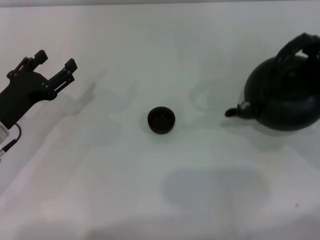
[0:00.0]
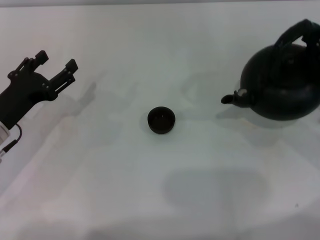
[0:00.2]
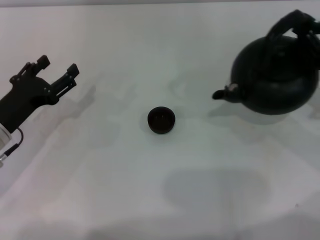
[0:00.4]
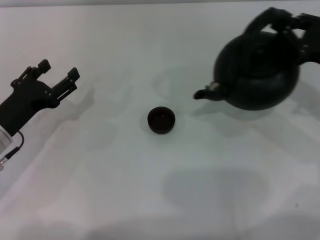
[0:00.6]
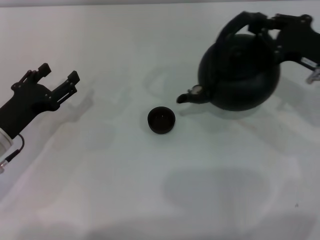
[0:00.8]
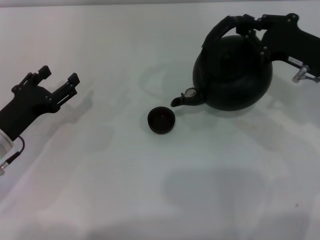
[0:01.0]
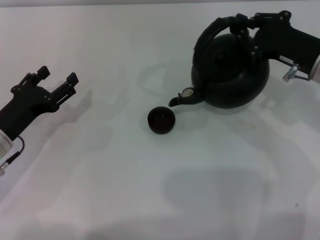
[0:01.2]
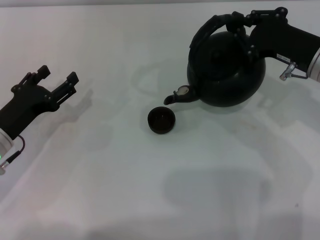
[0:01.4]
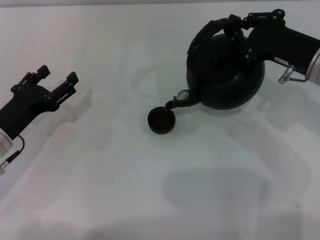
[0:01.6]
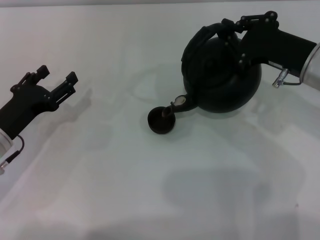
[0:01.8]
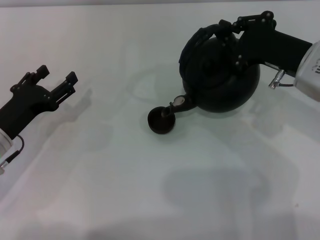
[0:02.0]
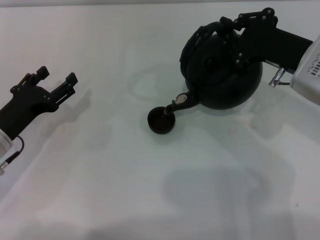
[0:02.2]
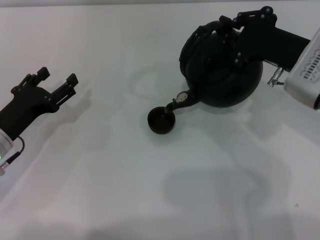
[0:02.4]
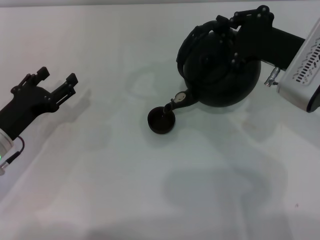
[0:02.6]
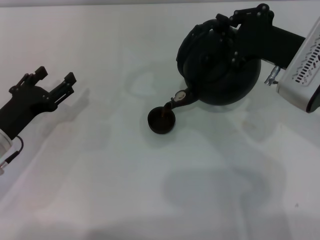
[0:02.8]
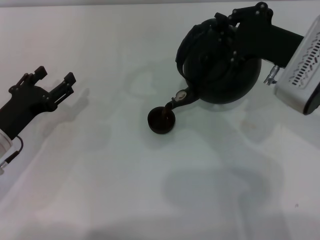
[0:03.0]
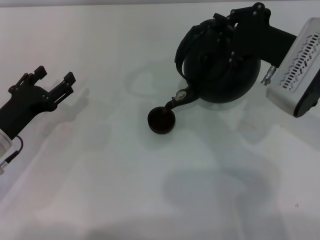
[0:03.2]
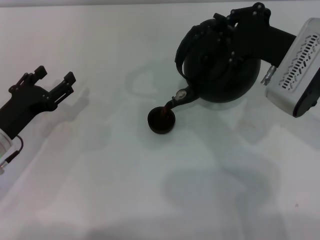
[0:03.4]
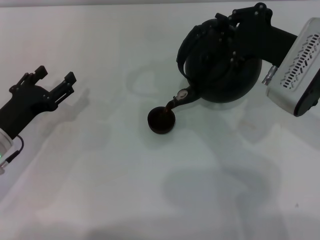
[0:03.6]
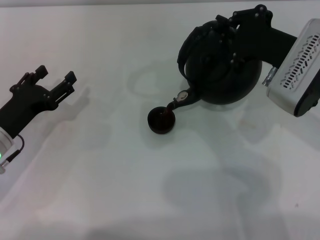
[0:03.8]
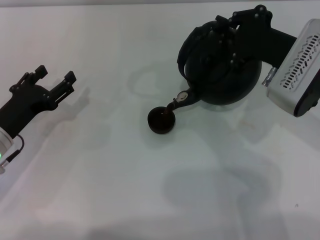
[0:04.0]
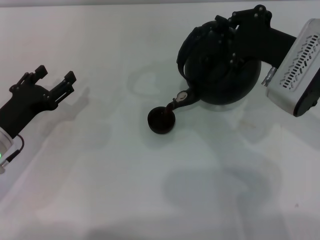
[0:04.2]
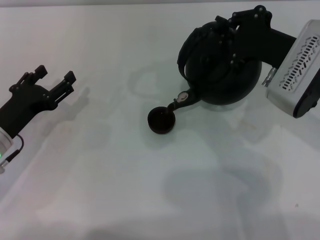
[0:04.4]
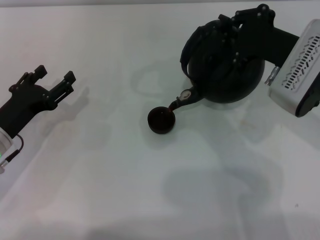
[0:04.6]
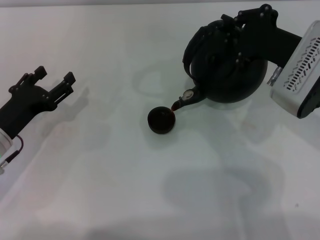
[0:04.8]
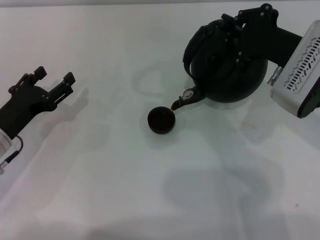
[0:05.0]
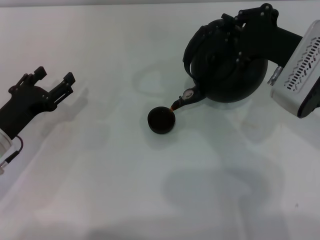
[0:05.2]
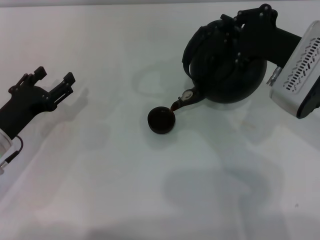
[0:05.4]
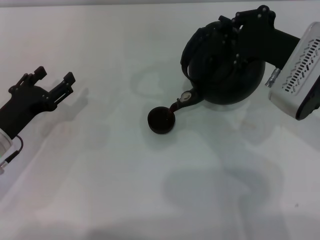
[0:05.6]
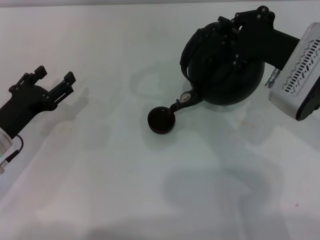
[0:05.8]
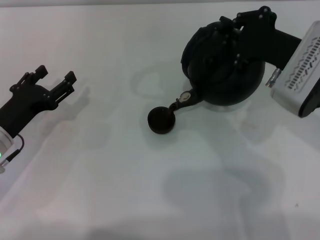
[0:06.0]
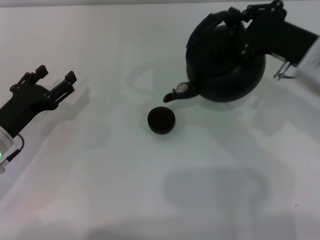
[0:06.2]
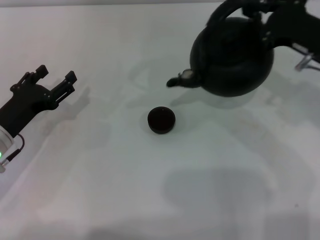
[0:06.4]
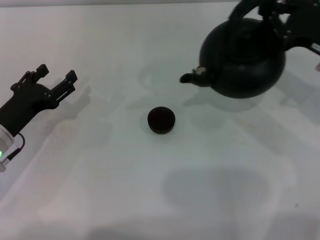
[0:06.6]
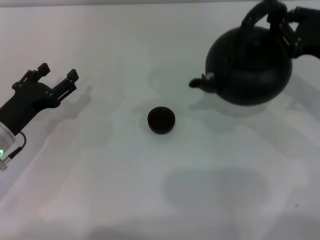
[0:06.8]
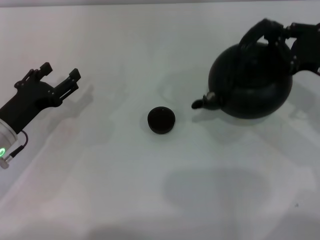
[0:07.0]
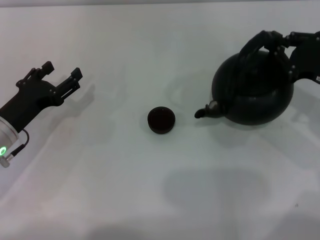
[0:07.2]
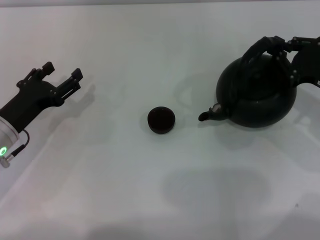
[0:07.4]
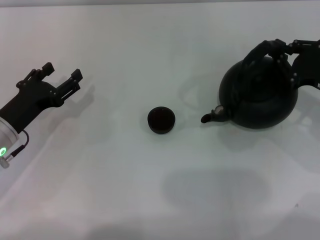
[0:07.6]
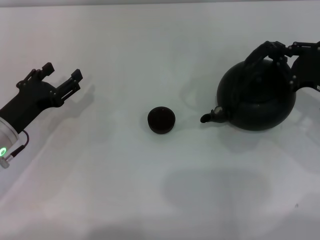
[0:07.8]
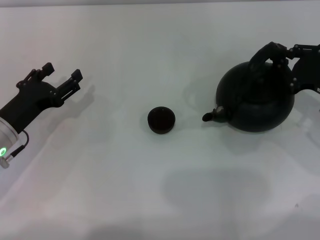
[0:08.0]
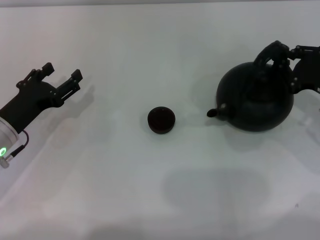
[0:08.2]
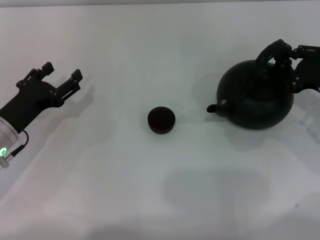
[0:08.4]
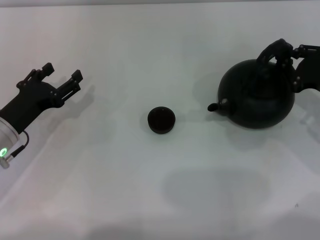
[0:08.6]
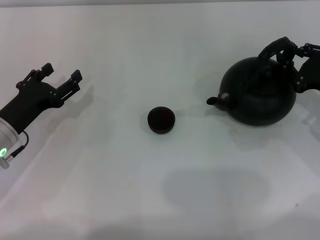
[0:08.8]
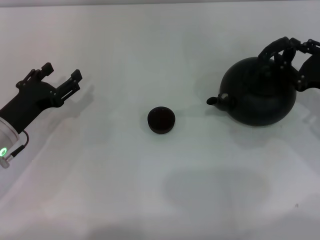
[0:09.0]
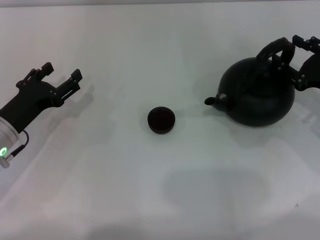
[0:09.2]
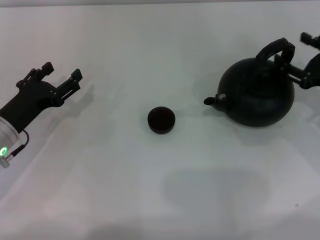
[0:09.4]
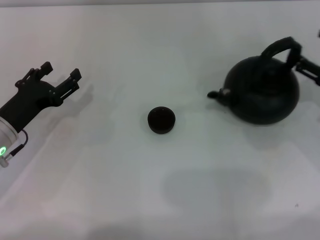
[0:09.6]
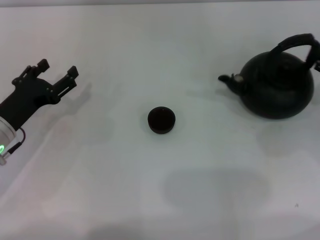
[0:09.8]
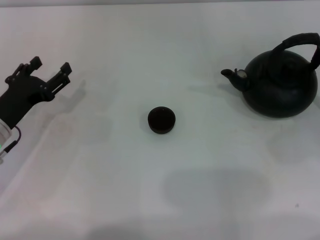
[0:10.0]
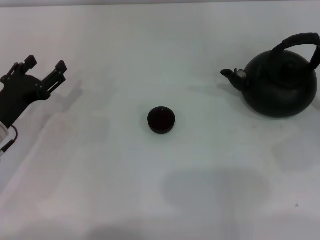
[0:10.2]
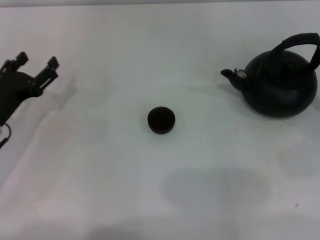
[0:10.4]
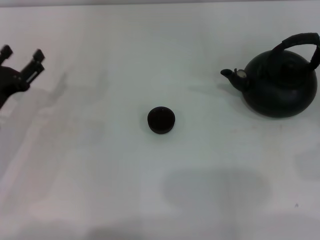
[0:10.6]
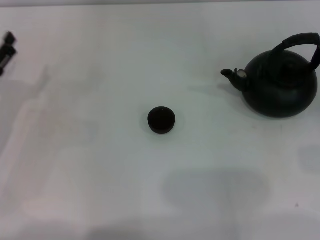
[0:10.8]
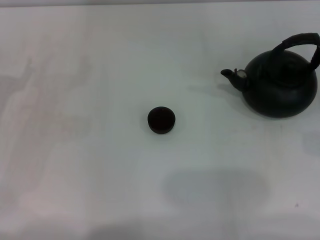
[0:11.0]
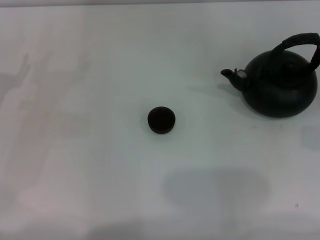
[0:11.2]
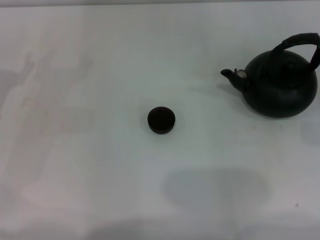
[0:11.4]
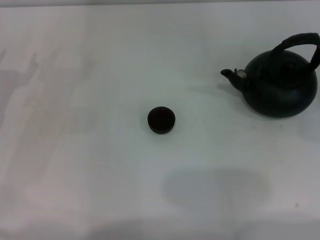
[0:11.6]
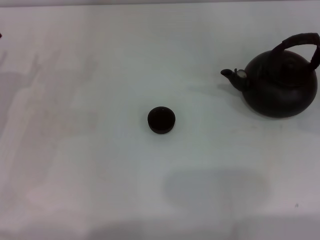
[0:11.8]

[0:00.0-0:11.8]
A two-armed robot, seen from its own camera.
Task of the whole recording: Grasp the handle of the teapot with one hand and pour tea into the teacup.
Step, 0:00.2 to 0:06.0: Pour tea into the teacup with the right gripper.
Step, 0:06.4 to 0:10.0: Put down the teapot with the right gripper.
0:00.0 to 0:01.4: The right gripper moves to the left and forward, roughly 10 cm.
0:03.0 to 0:06.0: Both grippers stay put.
0:06.0 to 0:07.4: The right gripper shifts approximately 10 cm to the right and downward.
0:07.4 to 0:08.8: The grippers stay close to where they were, moving slightly.
0:08.8 to 0:10.4: The right gripper moves backward and to the right, roughly 10 cm, and opens.
0:10.4 to 0:11.8: The left gripper moves some 5 cm.
